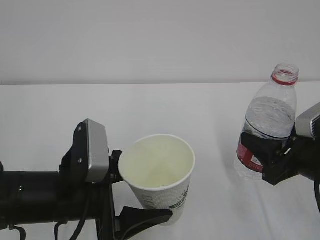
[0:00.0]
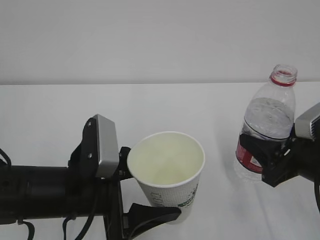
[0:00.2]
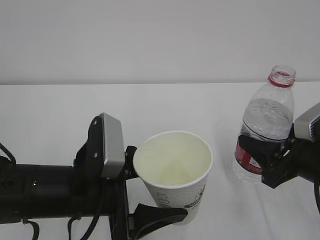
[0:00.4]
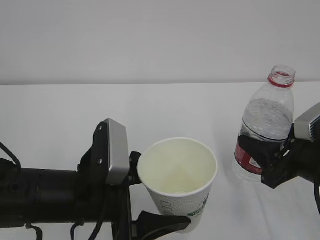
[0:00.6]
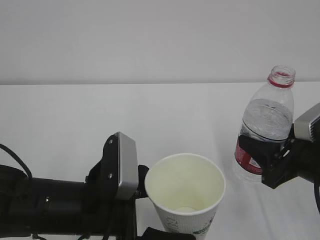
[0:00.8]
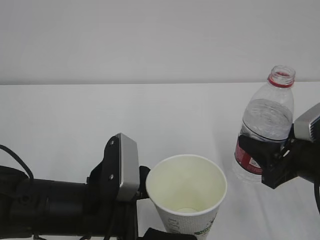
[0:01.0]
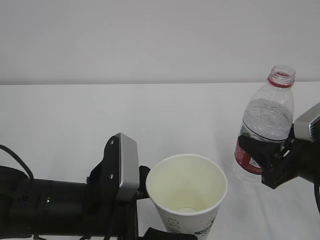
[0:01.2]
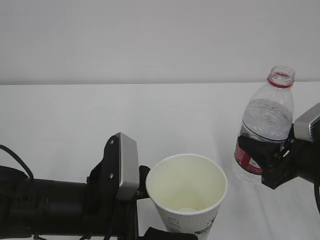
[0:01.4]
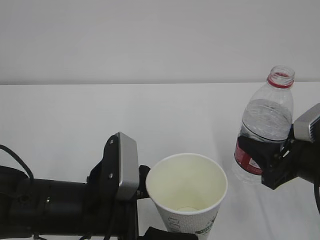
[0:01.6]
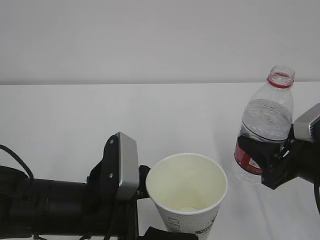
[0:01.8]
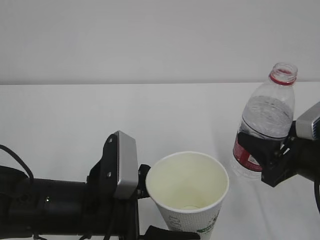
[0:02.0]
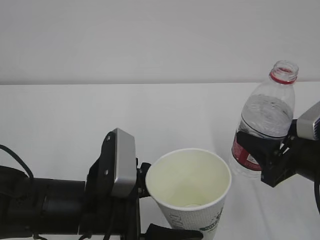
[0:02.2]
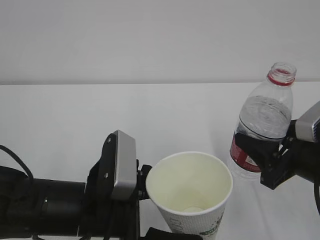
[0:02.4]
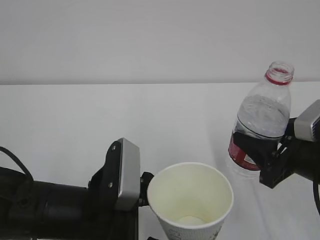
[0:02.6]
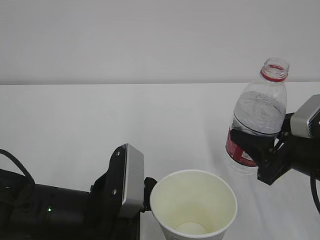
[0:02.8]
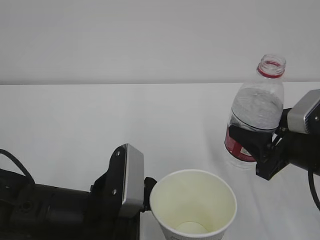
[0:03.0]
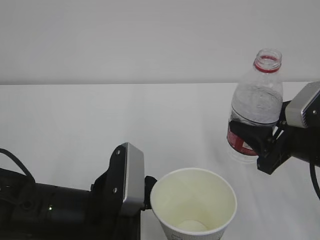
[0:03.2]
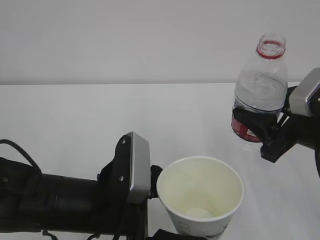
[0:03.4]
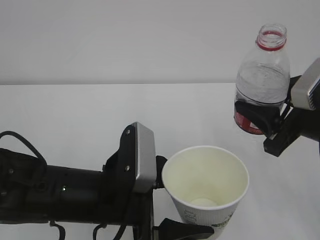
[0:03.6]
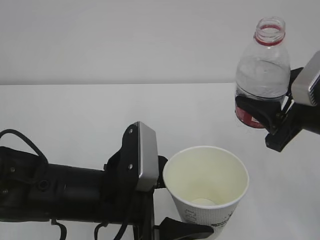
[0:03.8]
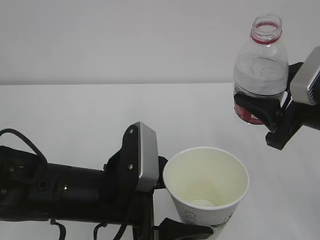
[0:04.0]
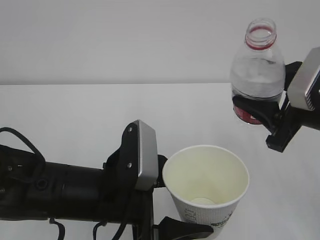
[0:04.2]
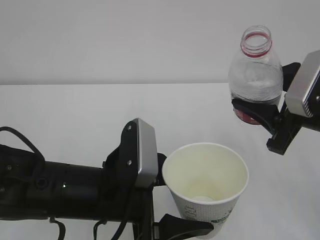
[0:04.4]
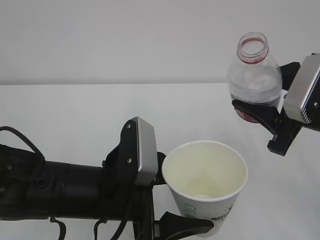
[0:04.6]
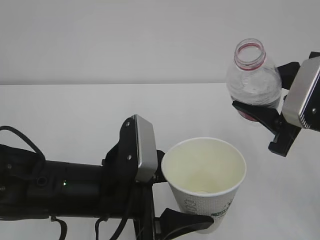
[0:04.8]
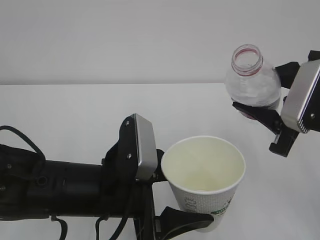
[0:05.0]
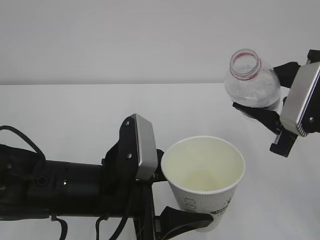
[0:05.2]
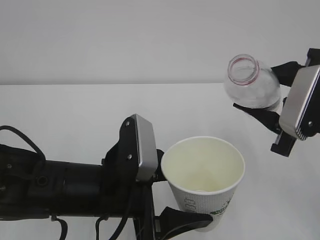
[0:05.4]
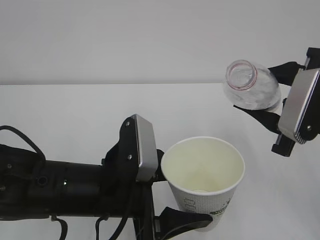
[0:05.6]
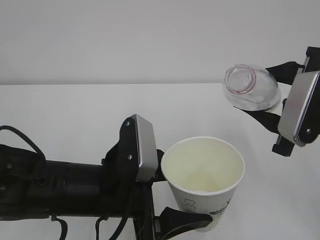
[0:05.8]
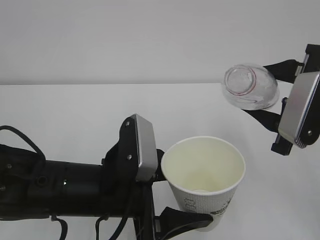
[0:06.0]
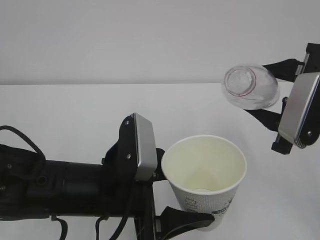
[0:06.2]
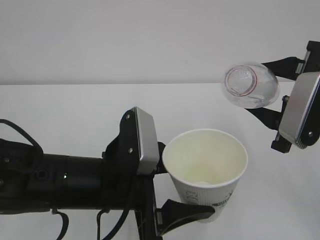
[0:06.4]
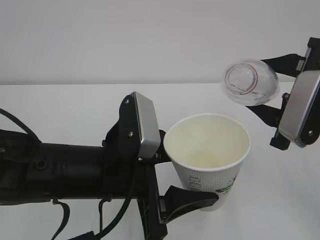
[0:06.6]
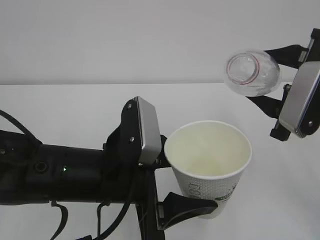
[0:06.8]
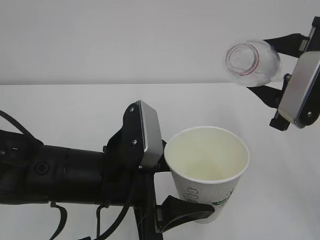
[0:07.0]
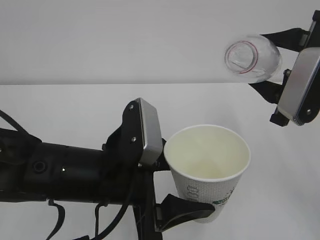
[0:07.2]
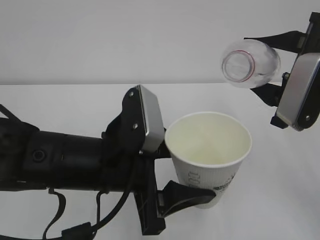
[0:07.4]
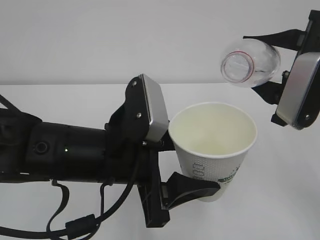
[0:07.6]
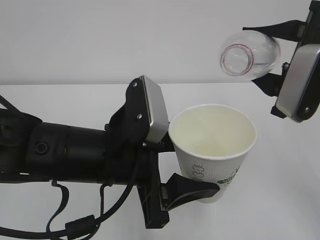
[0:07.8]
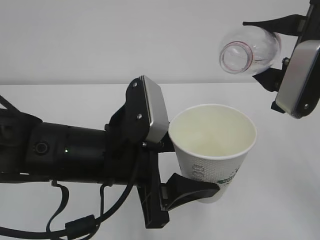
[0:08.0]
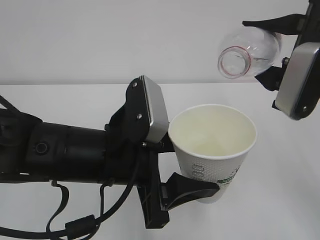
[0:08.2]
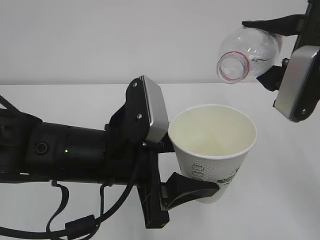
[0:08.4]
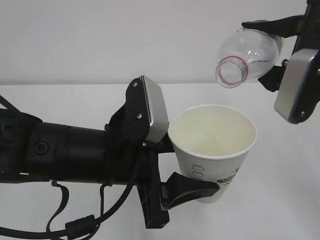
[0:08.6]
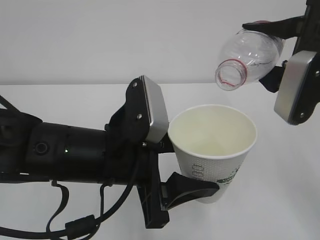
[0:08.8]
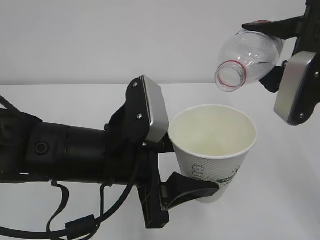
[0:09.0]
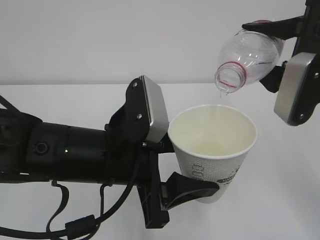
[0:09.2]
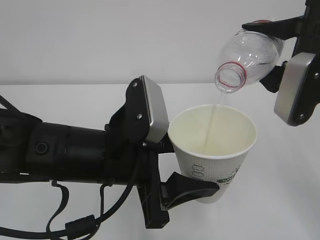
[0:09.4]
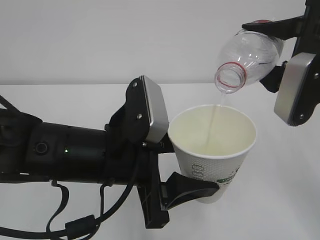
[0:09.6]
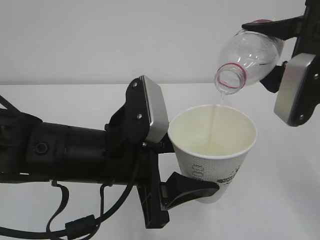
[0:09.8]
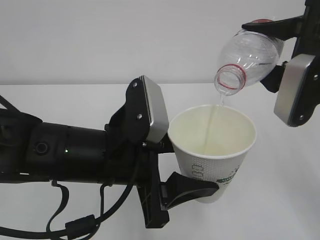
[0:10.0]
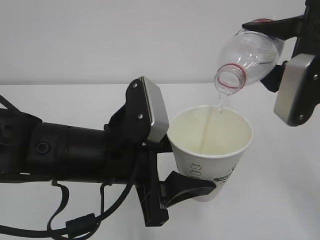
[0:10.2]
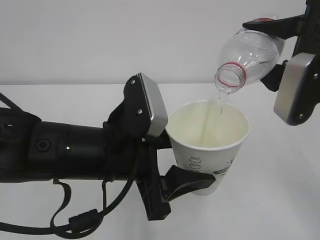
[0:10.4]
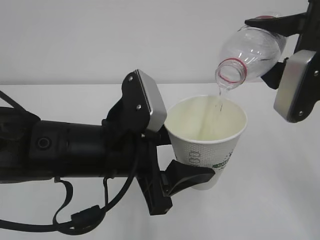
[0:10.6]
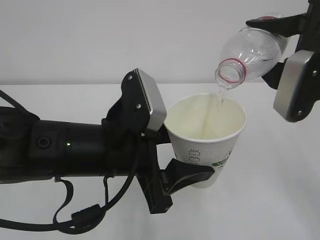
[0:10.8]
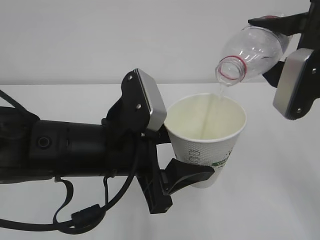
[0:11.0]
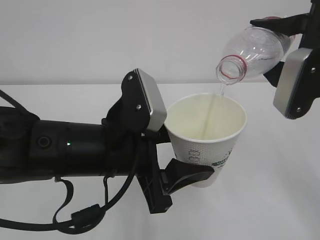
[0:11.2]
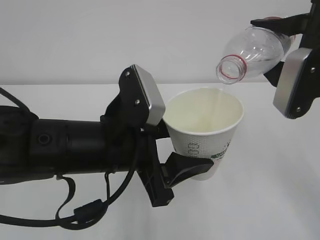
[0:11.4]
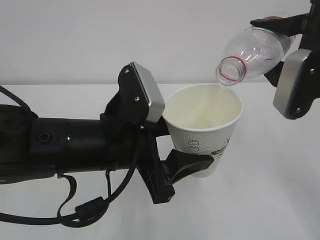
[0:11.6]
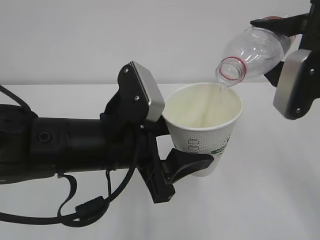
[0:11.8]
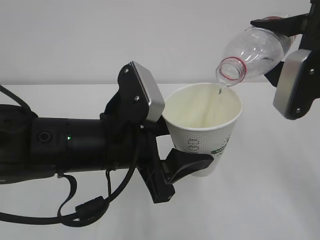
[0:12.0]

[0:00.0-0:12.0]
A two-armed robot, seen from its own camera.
0:00.0 to 0:03.0: The grippers stay close to where they were, moving slightly.
0:03.0 to 0:04.4: The right gripper heads upward, covering some 5 cm.
0:07.6 to 0:09.0: There are only small adjustments of the grippers.
0:09.0 to 0:10.4: Neither gripper changes place.
0:10.4 to 0:12.0: The grippers move only a little.

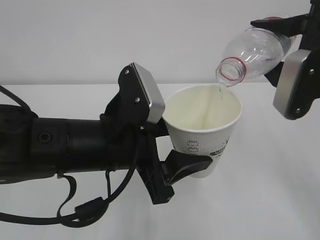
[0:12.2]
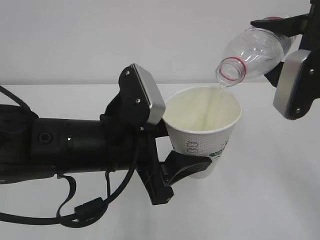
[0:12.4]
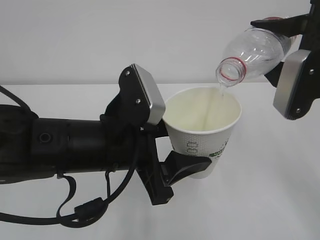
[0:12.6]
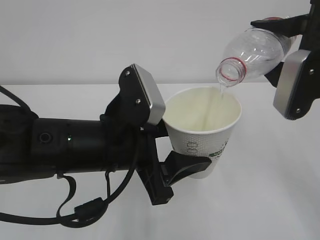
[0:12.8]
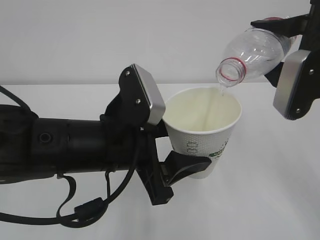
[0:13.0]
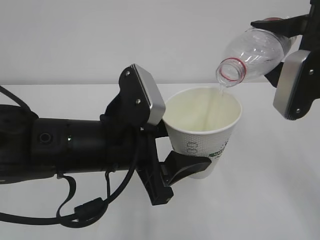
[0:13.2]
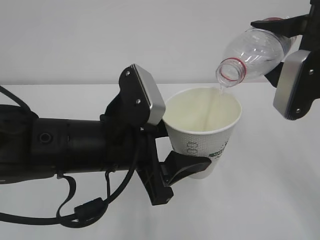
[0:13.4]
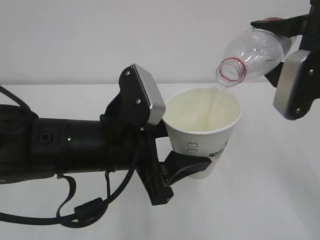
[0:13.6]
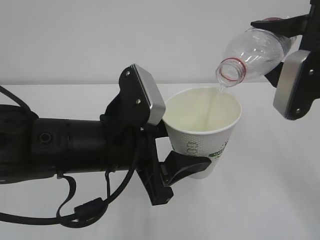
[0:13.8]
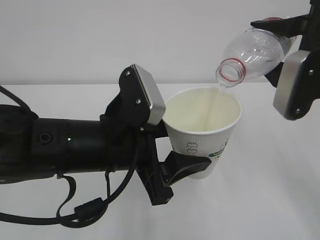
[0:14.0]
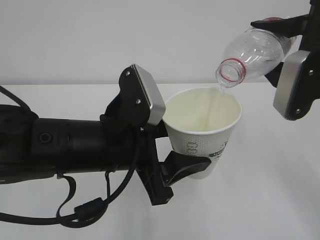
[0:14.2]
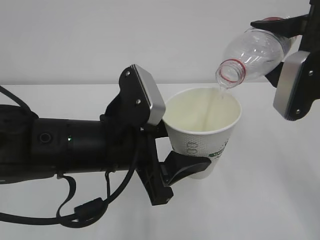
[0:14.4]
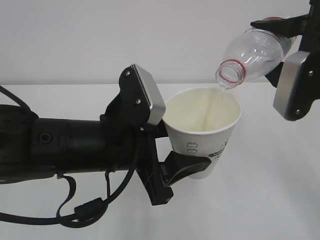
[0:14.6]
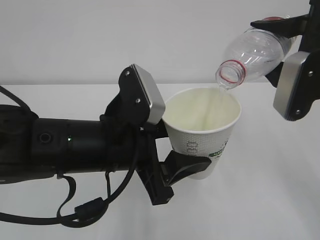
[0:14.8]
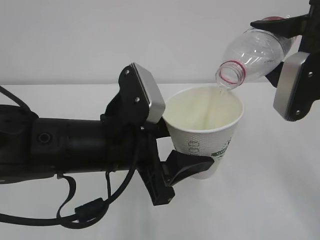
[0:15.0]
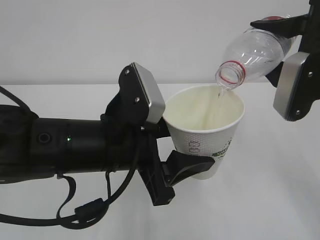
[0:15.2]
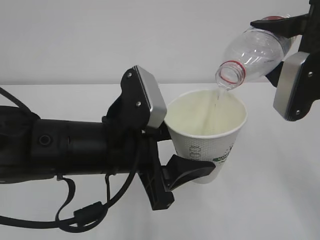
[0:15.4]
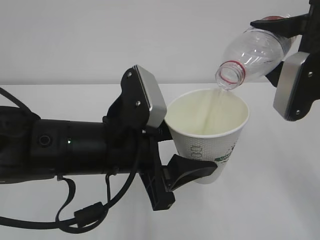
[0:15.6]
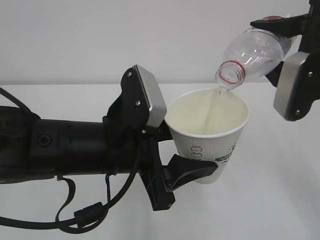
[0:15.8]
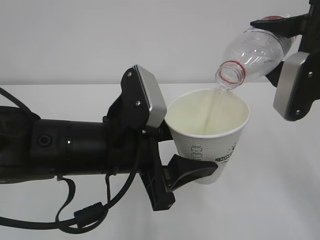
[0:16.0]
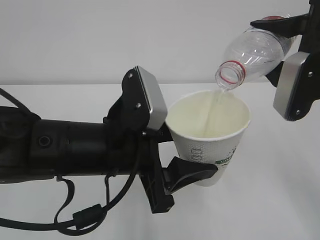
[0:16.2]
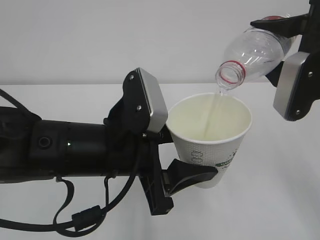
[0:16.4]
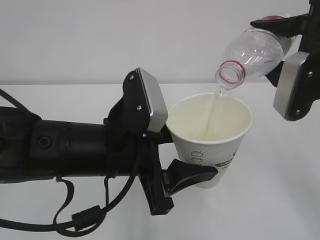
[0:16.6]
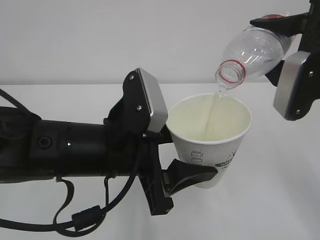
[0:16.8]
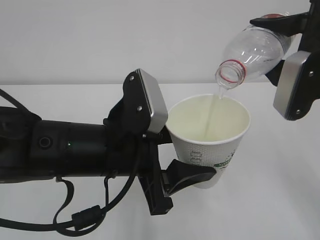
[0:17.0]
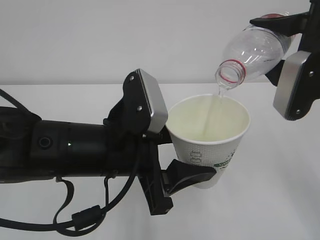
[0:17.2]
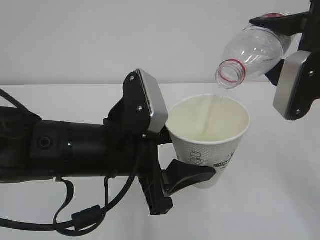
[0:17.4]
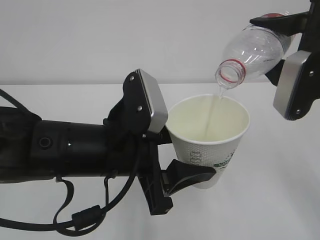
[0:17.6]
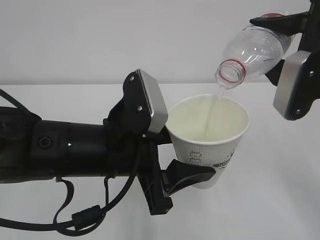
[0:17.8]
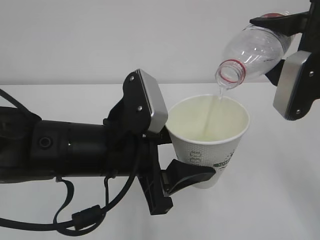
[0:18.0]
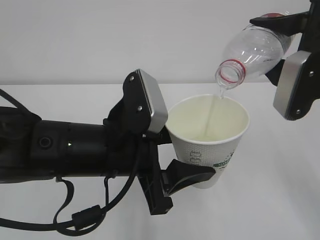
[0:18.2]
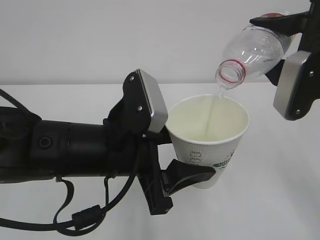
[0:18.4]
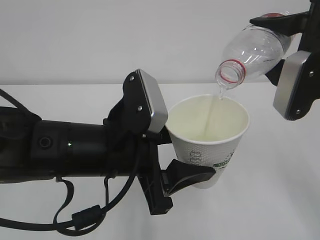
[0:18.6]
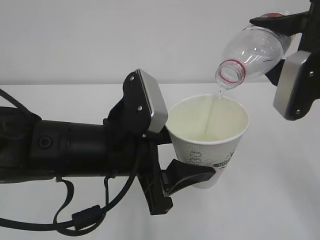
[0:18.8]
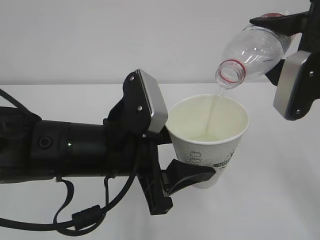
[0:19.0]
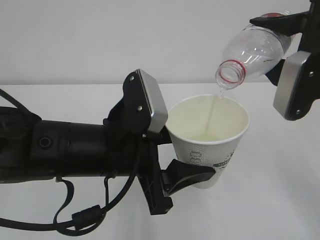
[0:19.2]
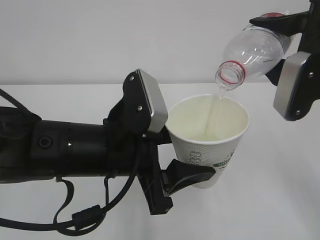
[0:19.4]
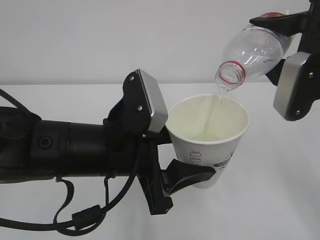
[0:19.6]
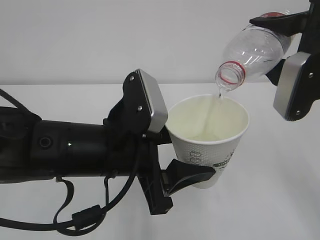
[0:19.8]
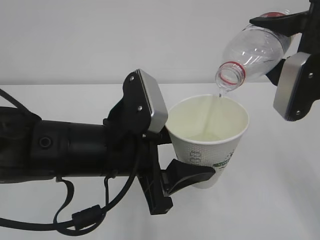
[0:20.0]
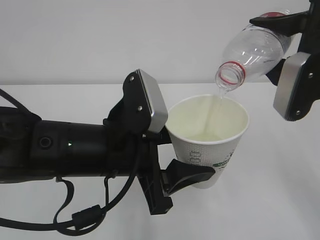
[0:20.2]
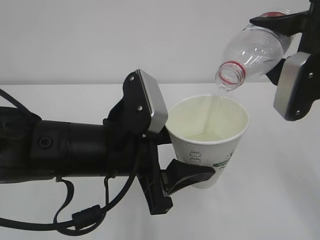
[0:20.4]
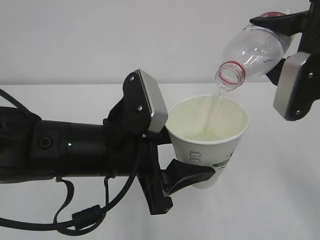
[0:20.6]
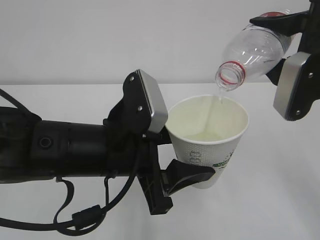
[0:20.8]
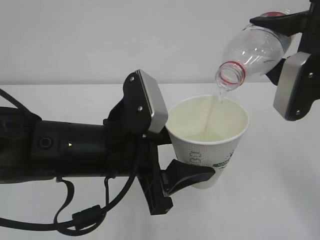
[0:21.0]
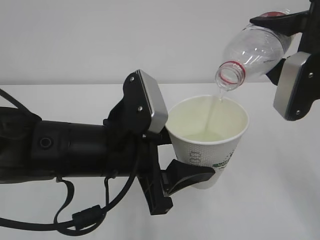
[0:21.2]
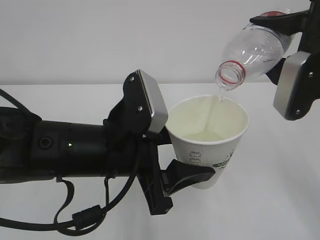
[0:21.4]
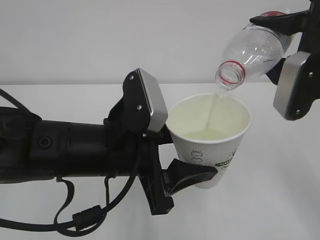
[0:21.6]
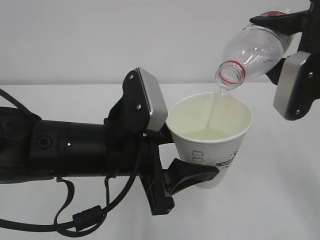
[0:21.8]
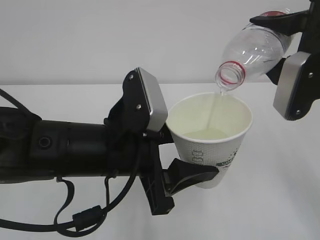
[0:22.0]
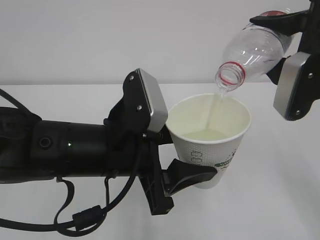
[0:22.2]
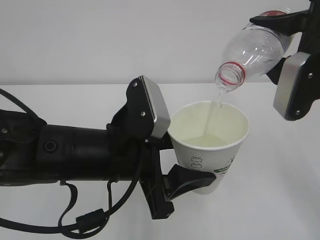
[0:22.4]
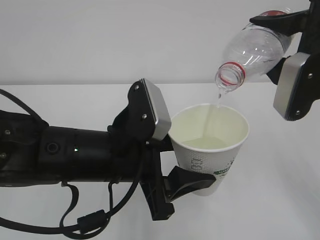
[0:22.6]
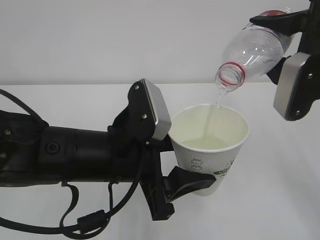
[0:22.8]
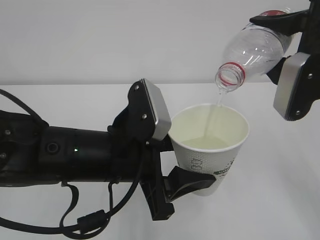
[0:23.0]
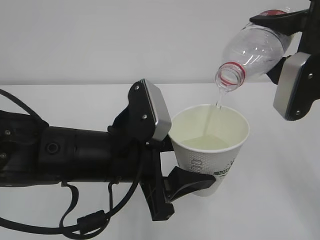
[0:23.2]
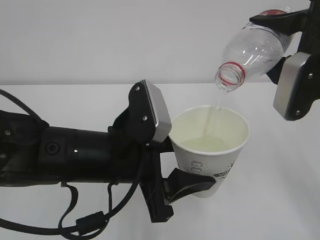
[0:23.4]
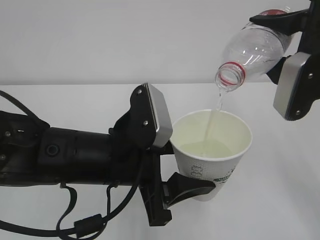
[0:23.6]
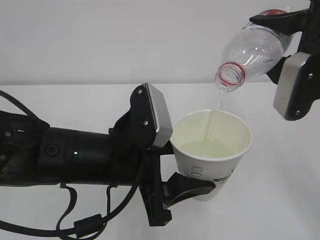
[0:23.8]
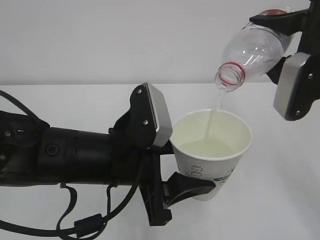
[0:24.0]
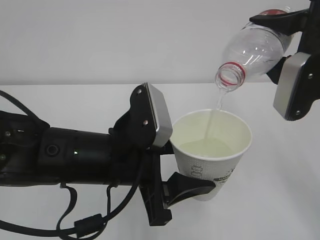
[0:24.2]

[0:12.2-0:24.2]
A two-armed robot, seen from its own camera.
0:12.2 to 0:15.2: Neither gripper changes place.
0:15.2 to 0:21.2: Neither gripper changes place.
0:21.2 to 0:24.2: Both grippers stay put.
